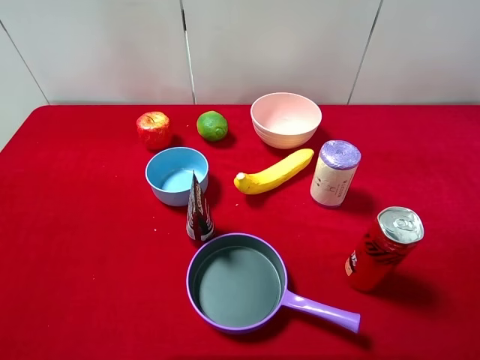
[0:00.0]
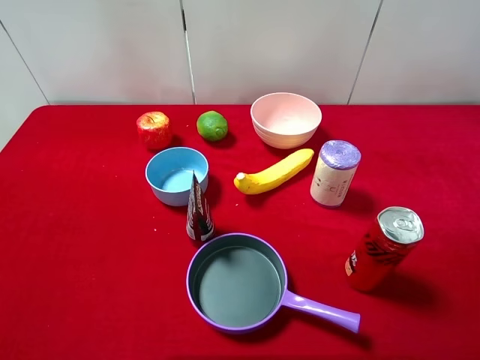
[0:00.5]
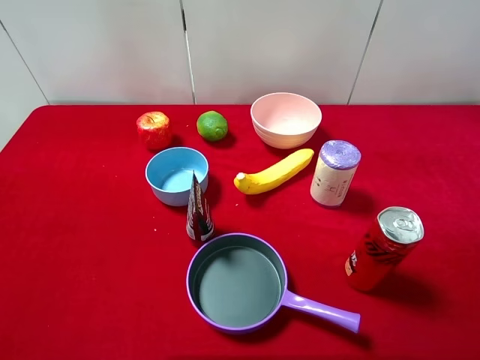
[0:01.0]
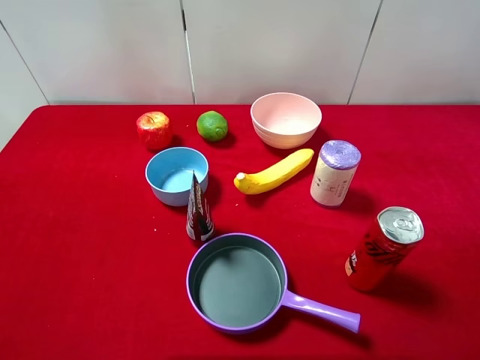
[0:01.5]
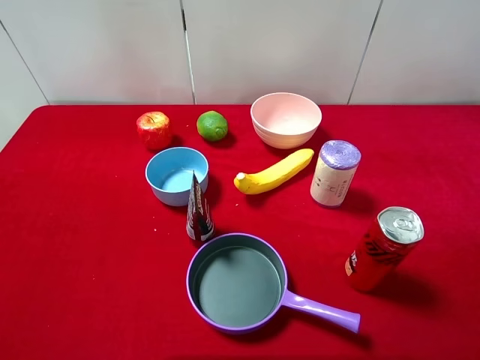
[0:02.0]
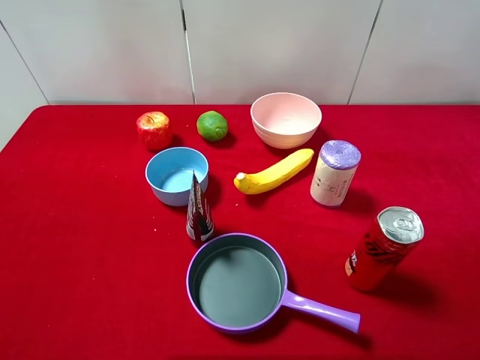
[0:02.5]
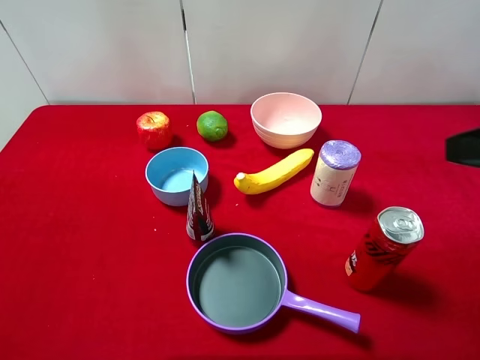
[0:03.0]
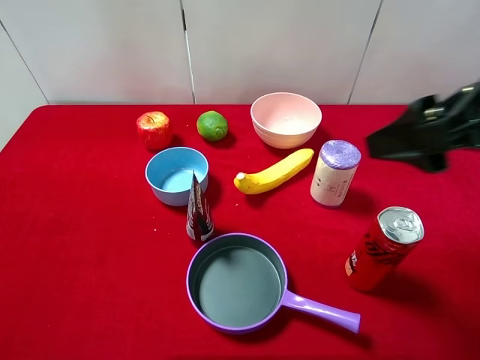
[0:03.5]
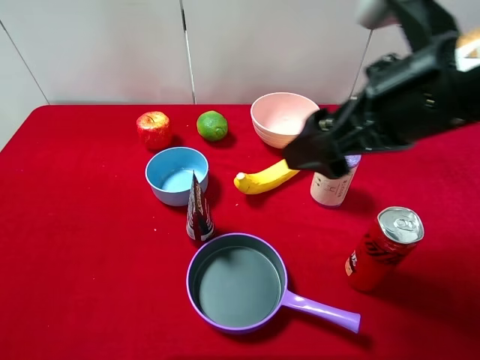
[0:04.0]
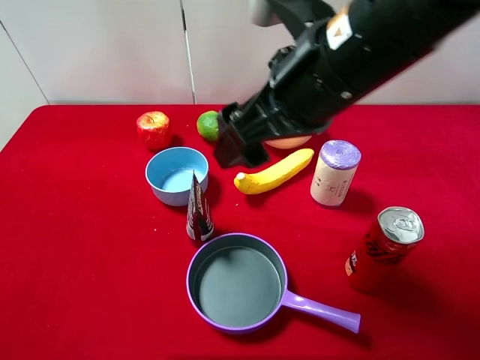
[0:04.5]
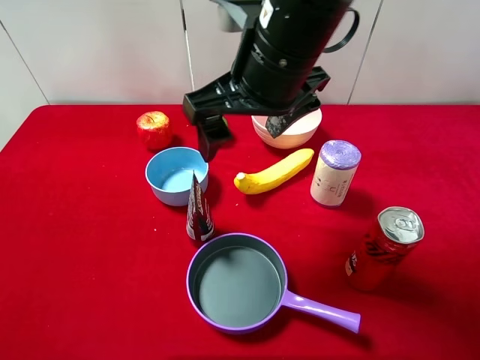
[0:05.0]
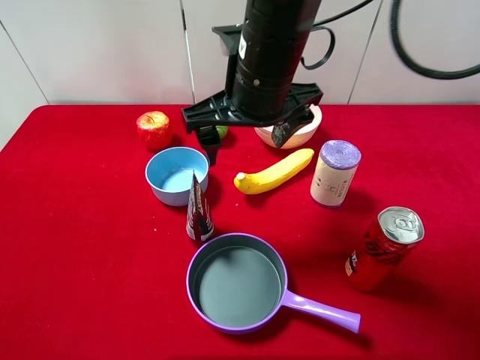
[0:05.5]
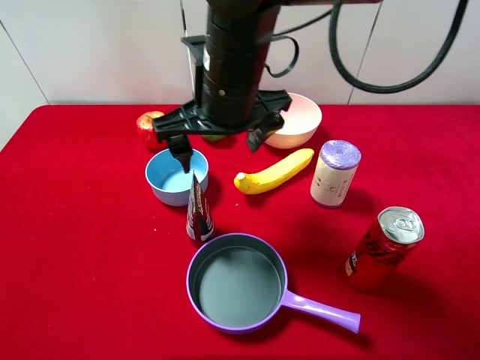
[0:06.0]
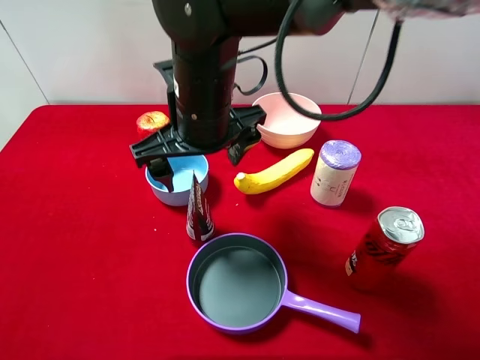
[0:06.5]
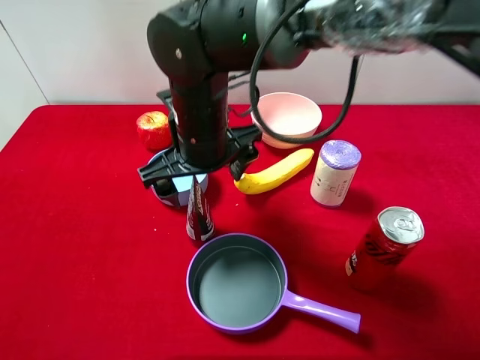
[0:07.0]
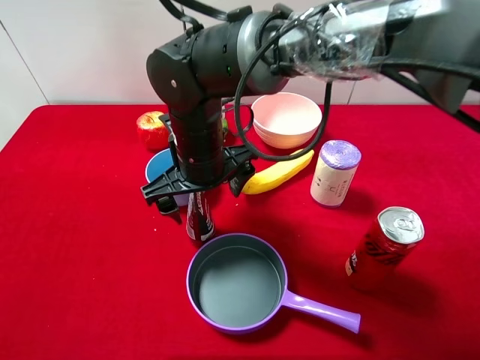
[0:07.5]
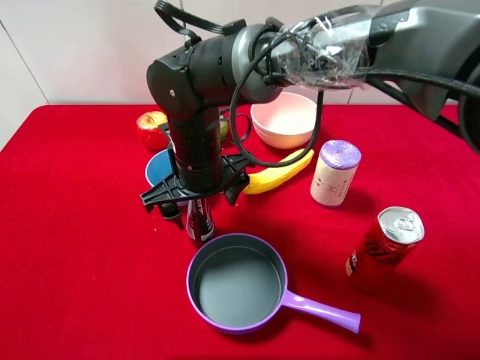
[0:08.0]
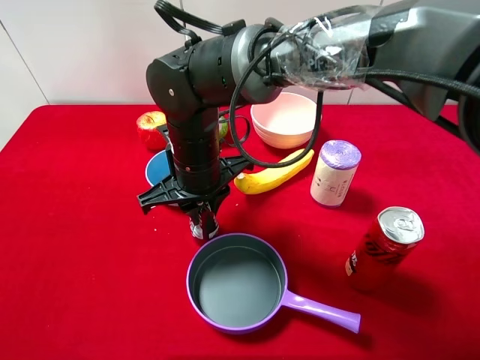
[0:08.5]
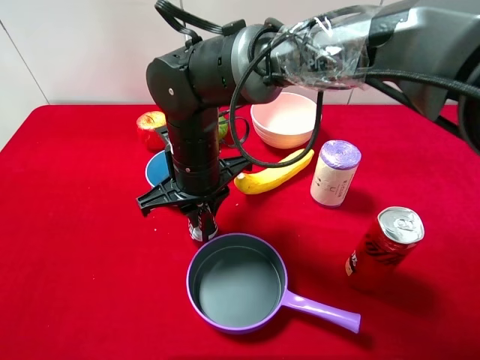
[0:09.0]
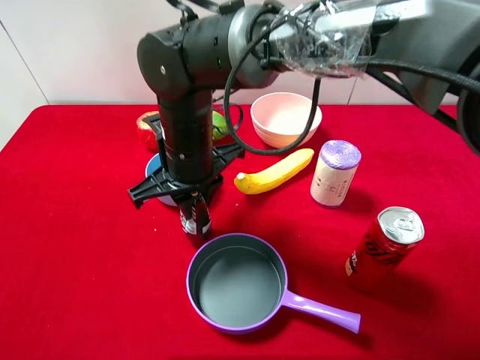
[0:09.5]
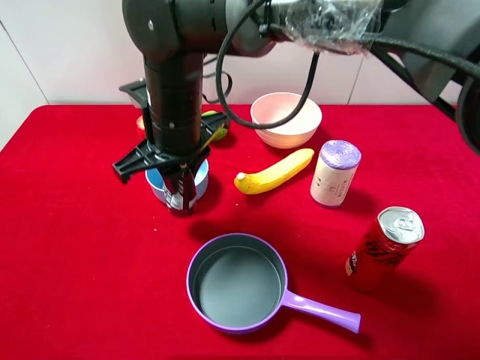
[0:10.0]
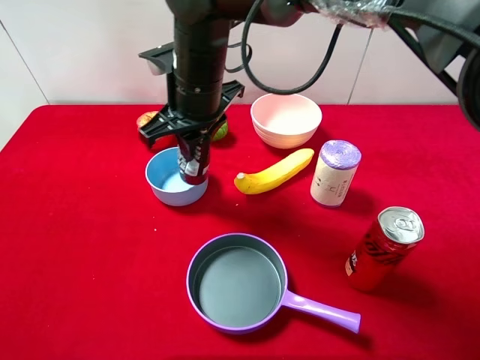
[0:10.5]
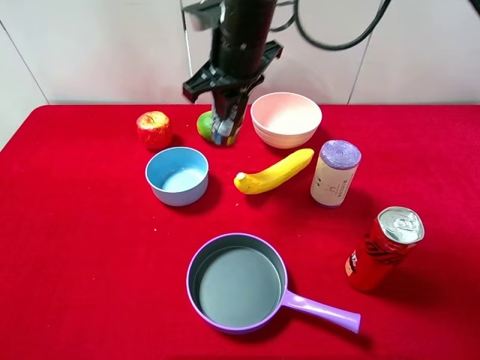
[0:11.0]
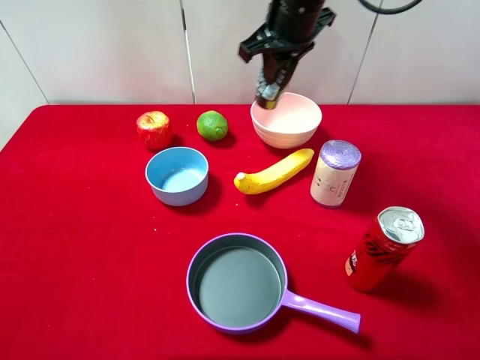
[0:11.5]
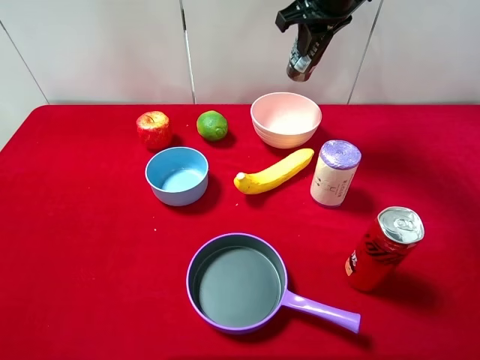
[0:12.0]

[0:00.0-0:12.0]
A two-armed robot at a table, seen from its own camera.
Task of the whole recording: pick up an item with a gripper and place it in a random container on the desktop.
0:00.0 to 0:02.0: Neither gripper changes place.
0:02.0 to 0:04.0: The right gripper is displaced forward and to the left by some 25 cm.
0:04.0 to 0:06.0: The right gripper heads to the left and forward, covering some 20 cm.
0:06.0 to 0:08.0: The right gripper travels downward by roughly 10 cm.
0:08.0 to 0:10.0: The right gripper goes some 5 cm upward, and closes its fingers.
0:10.0 to 0:12.0: The right gripper goes roughly 30 cm to the right, forward and upward.

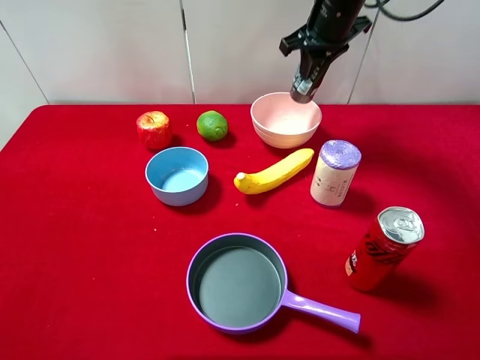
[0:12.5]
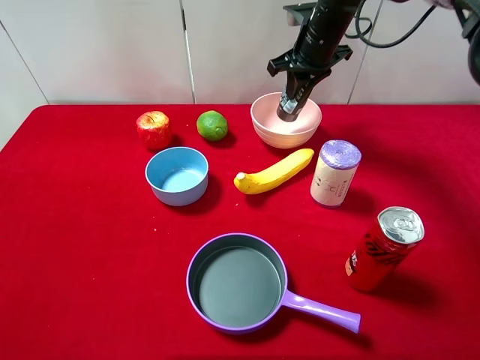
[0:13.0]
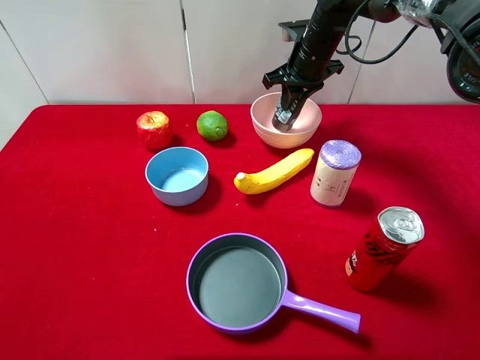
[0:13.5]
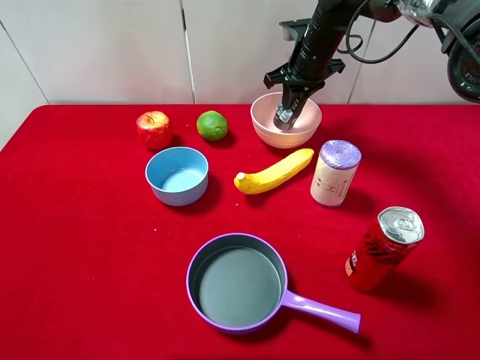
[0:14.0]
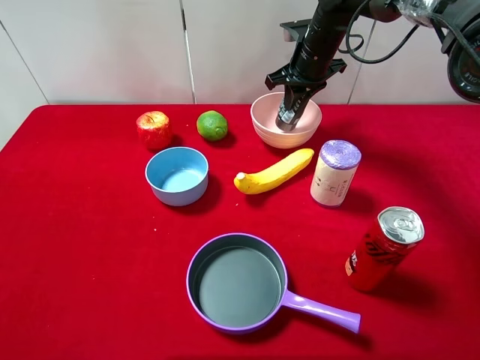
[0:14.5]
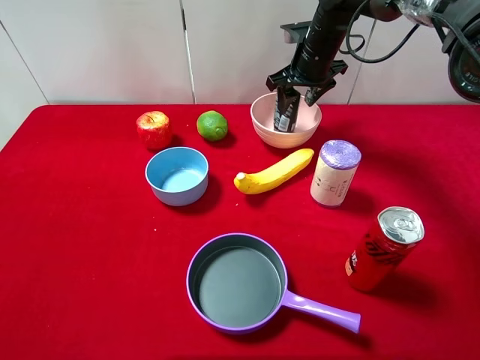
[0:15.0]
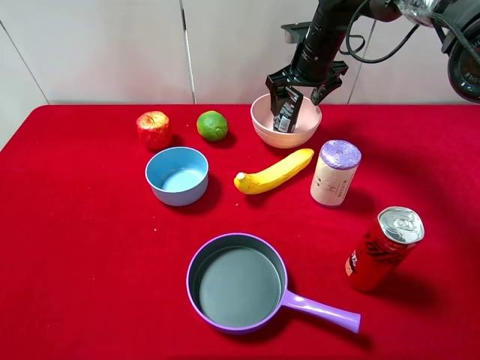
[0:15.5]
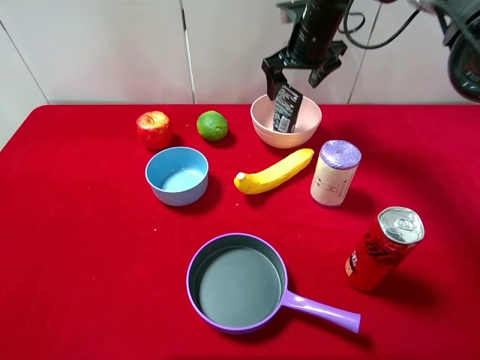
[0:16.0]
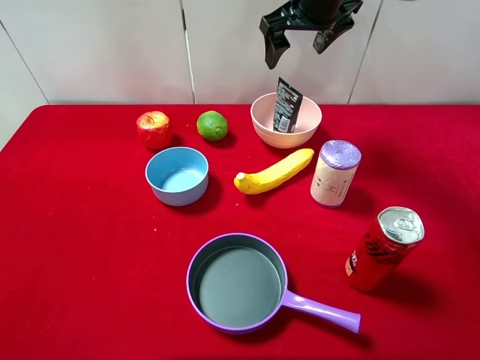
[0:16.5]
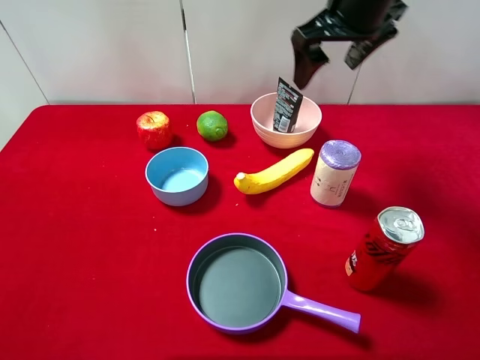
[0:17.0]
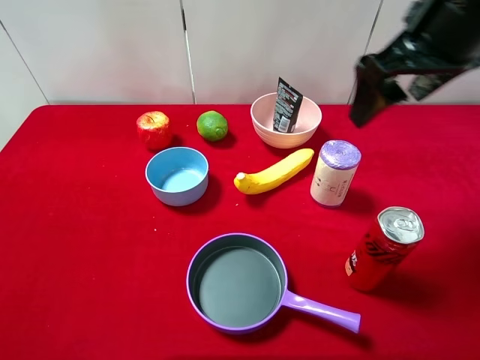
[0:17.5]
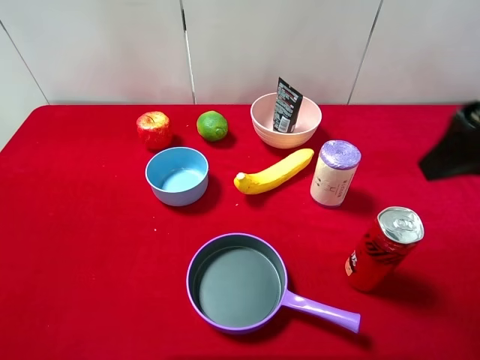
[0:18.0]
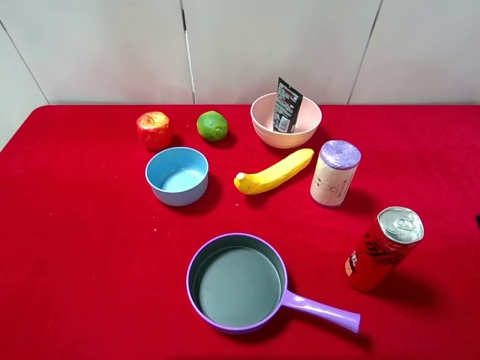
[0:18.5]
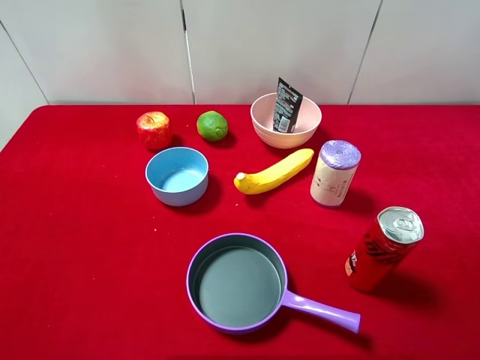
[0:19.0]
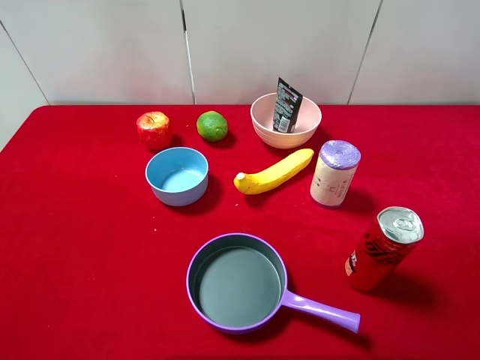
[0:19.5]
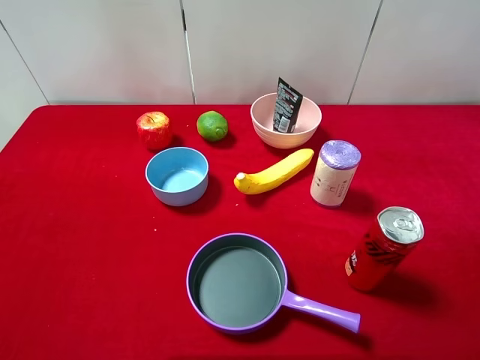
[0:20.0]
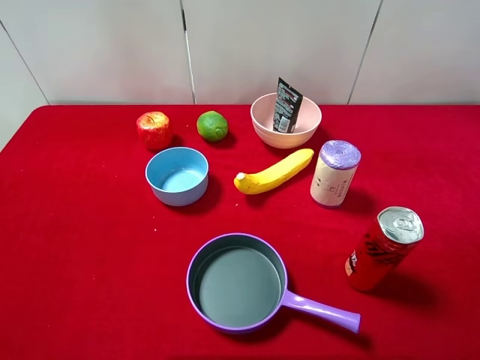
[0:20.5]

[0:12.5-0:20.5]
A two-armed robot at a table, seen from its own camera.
Task of the whole recording: pick up an item with a gripper and place it in a random container on the desktop.
0:12.5 to 0:14.5: The right gripper travels downward by some 5 cm.
0:14.5 to 0:16.5: The right gripper moves upward and backward, about 15 cm, and opens its fingers.
0:16.5 to 0:18.5: The right gripper is displaced backward and to the right by some 40 cm.

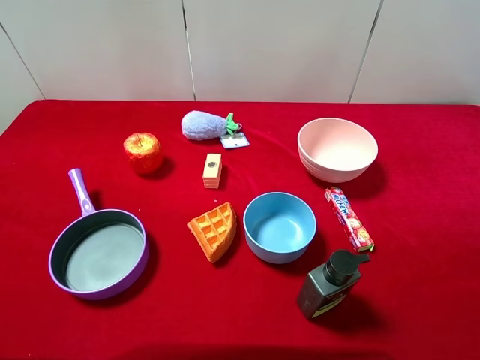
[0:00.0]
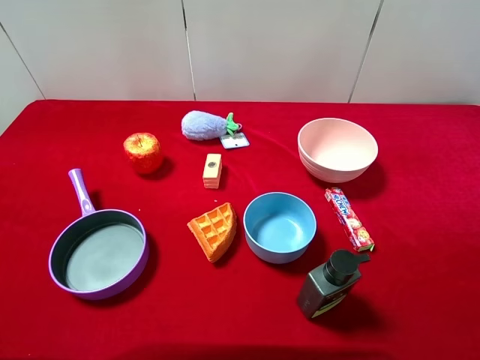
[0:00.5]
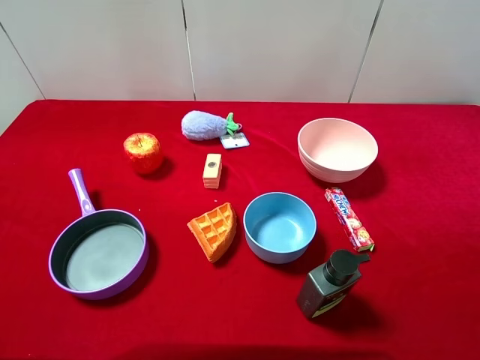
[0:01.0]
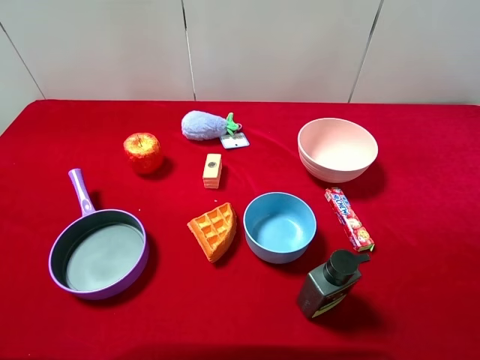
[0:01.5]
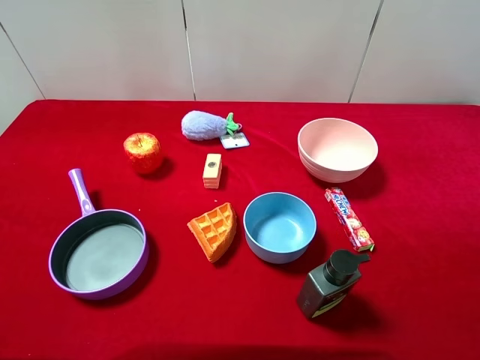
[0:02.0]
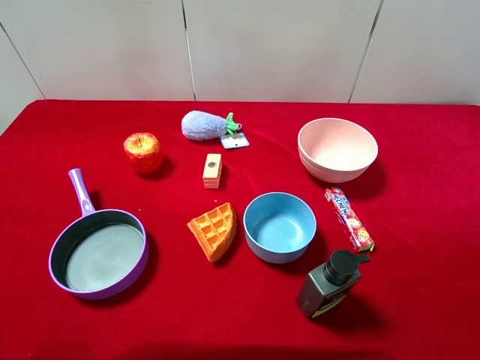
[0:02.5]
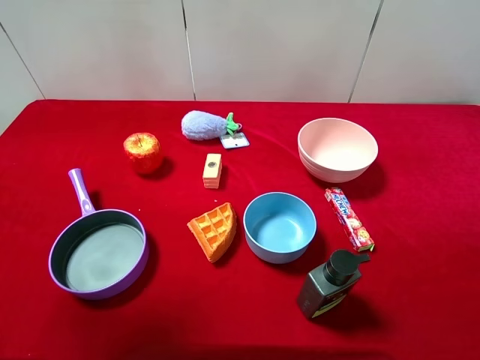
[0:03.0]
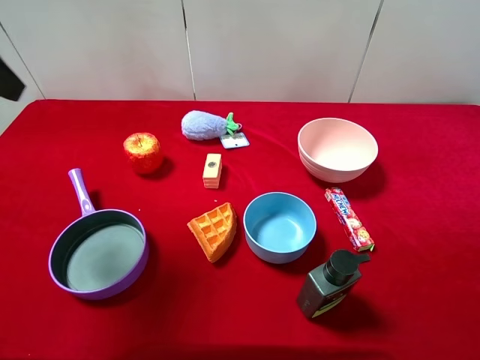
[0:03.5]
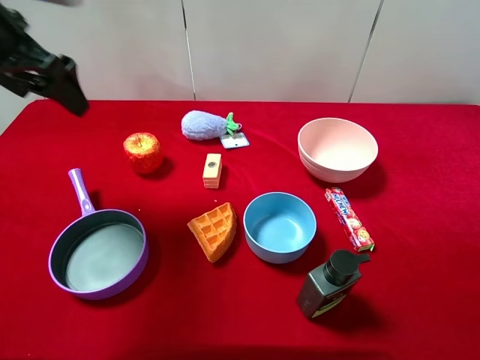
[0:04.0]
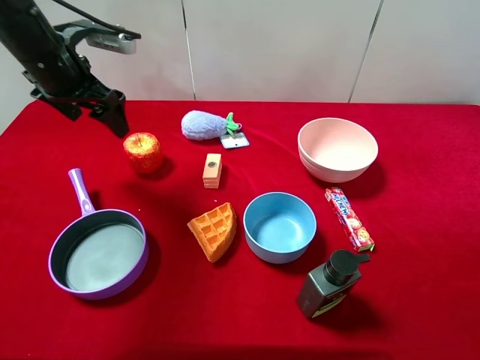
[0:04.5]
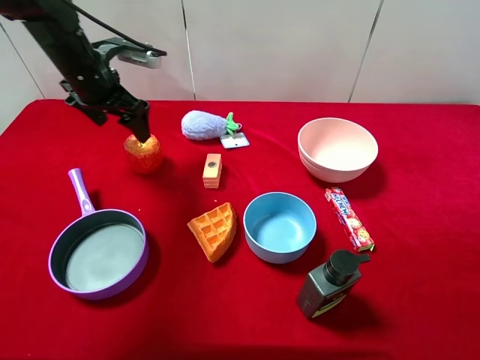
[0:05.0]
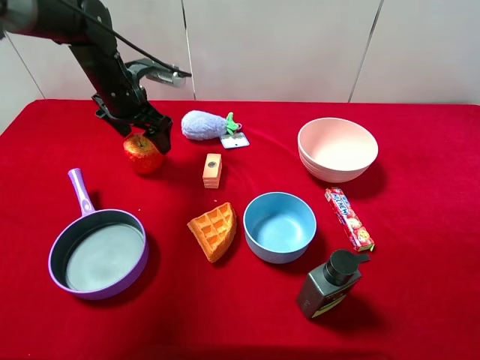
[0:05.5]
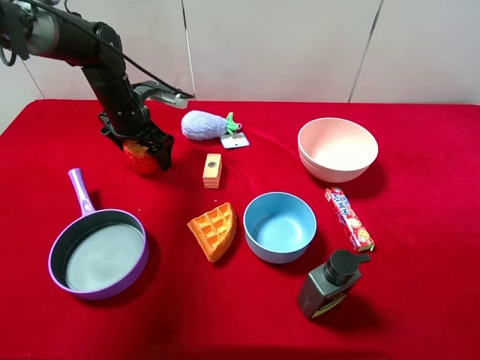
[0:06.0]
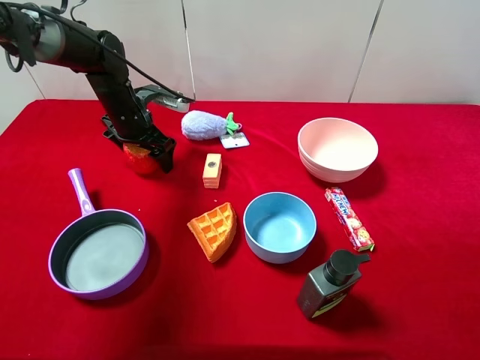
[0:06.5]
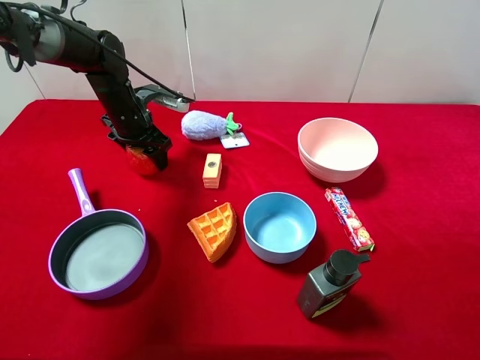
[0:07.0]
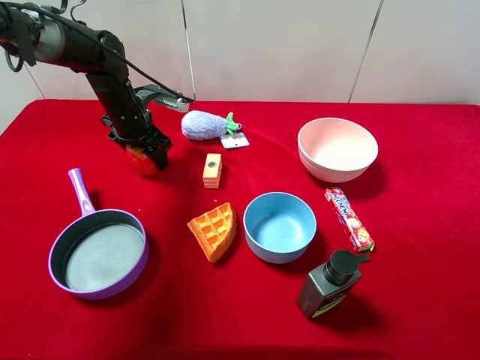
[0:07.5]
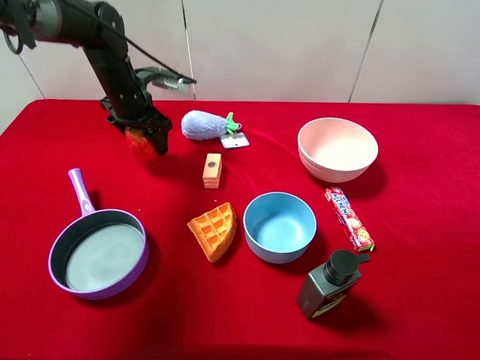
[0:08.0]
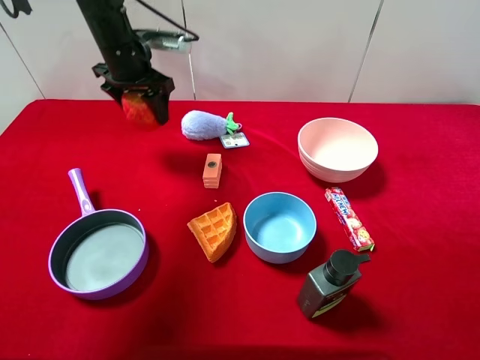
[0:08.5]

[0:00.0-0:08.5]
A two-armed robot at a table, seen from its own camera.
Task of the whole recording: pick up an item with a gripper and place it in a random container on the desktop.
0:02.0 to 0:04.0: The left gripper moves forward, about 30 cm.
0:04.0 to 0:06.5: The left gripper shifts approximately 25 cm downward and forward.
0:06.5 to 0:08.5: The left gripper heads upward, covering about 10 cm, and closes up.
